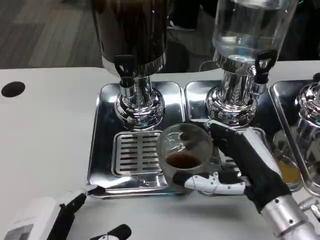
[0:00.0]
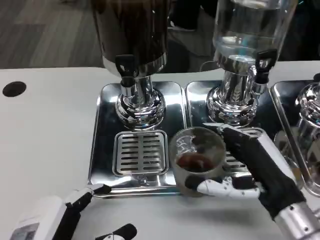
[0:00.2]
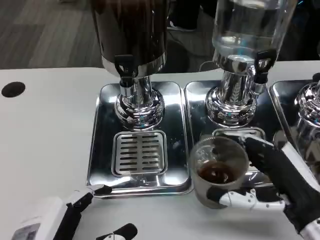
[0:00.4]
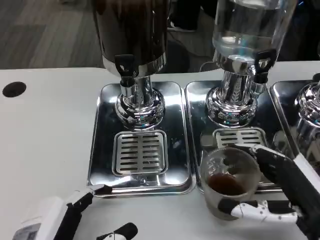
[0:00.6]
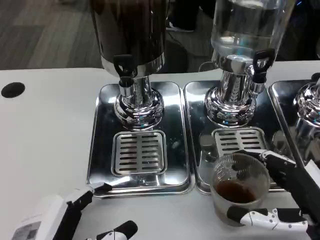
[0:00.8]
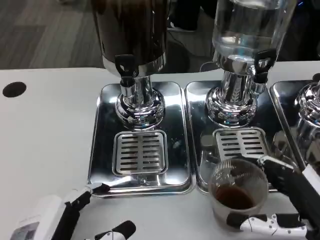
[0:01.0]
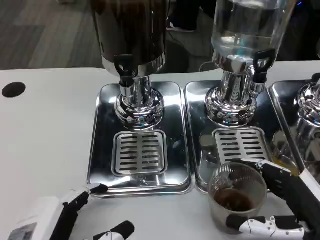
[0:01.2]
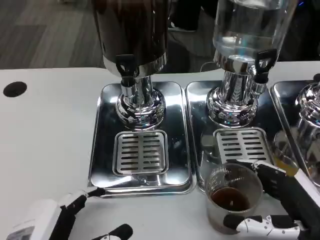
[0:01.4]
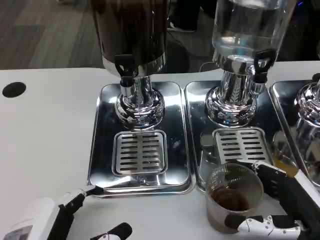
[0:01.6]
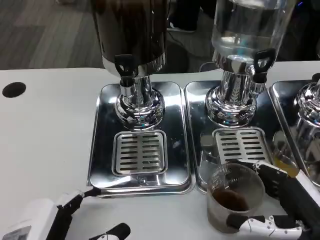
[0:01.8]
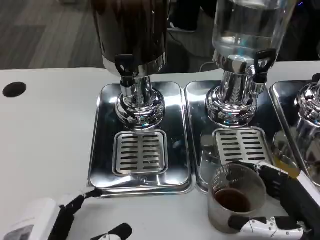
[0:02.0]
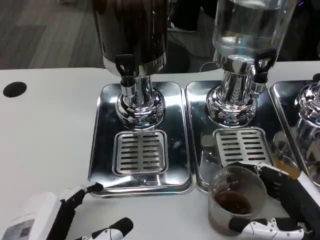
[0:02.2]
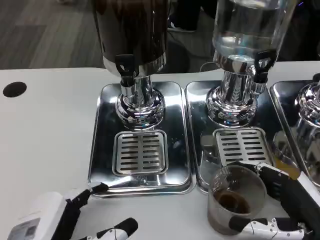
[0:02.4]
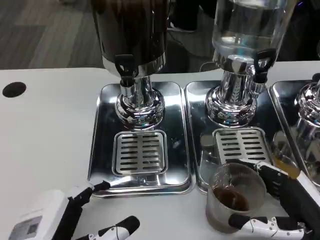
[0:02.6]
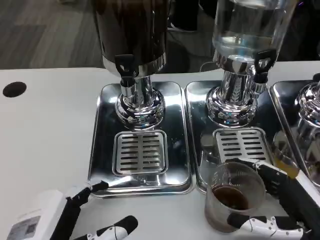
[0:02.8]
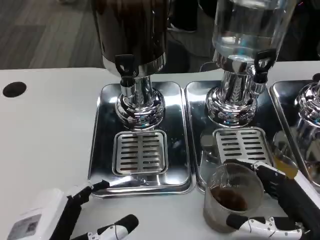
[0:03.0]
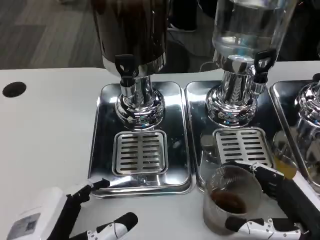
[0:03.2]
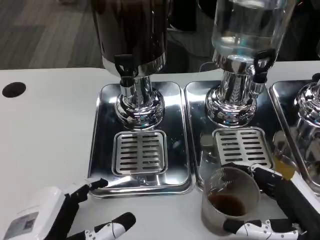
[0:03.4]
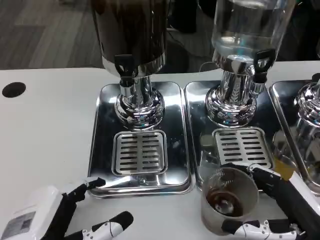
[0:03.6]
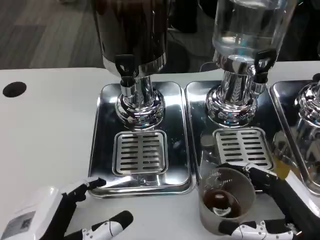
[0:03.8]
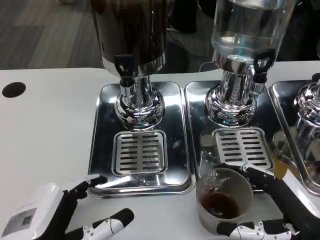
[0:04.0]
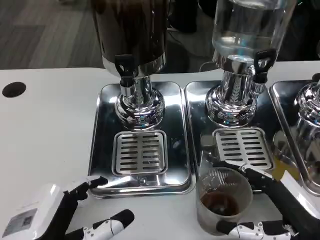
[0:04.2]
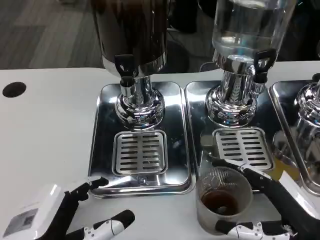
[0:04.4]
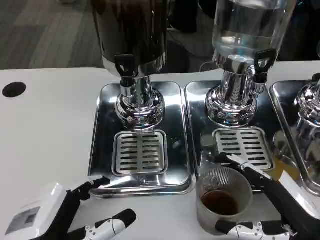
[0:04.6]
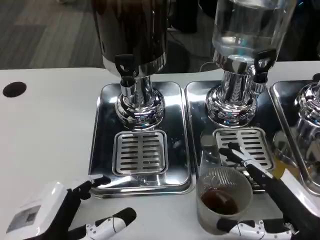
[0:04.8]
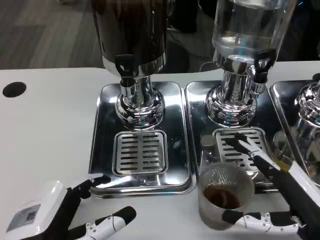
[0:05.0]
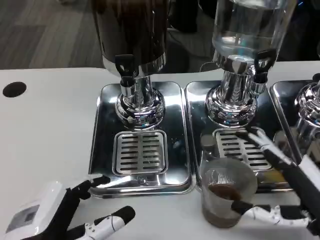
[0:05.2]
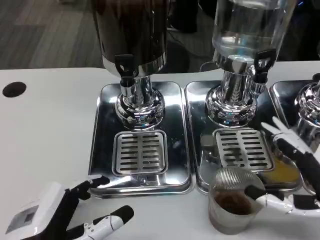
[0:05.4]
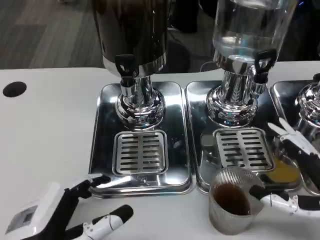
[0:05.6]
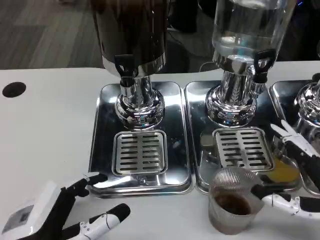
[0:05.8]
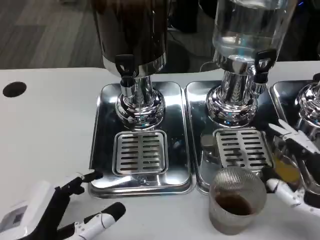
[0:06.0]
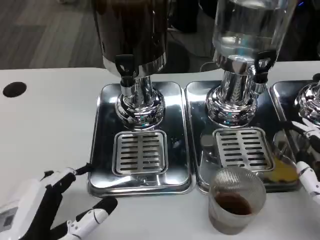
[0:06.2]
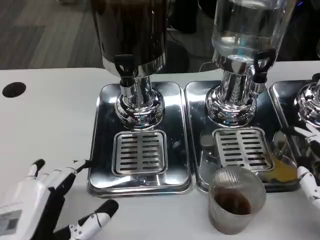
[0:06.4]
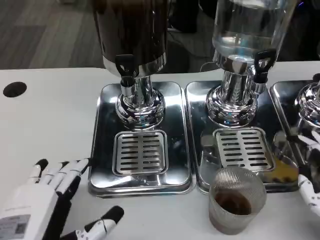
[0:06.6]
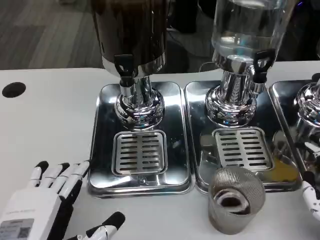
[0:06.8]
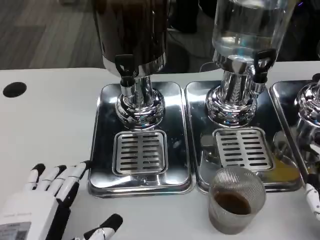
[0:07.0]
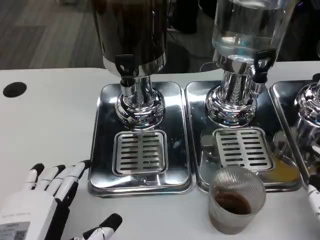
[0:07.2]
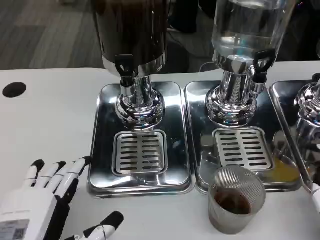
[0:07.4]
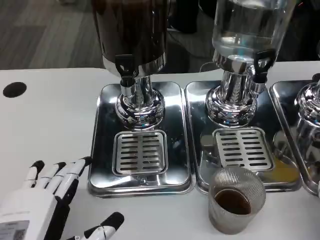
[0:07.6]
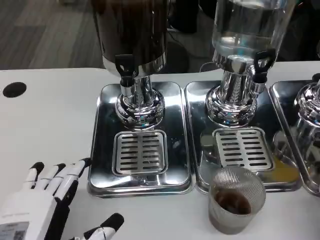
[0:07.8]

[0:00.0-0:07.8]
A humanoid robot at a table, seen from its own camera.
Task of the whole recording: Grasp the cup under the faucet to collect the drink, then remove the cup.
0:00.0 to 0:01.6: The right hand heads to the right, covering approximately 5 cm.
0:01.6 to 0:04.6: The hands make only small movements.
0:04.6 to 0:06.2: The right hand moves approximately 5 cm.

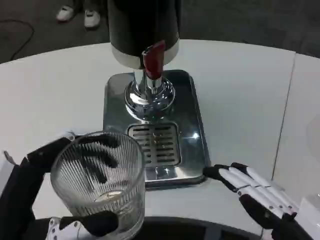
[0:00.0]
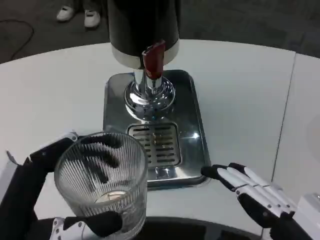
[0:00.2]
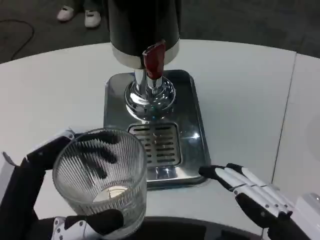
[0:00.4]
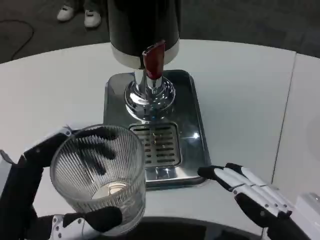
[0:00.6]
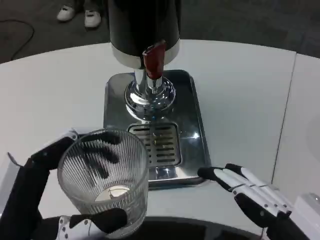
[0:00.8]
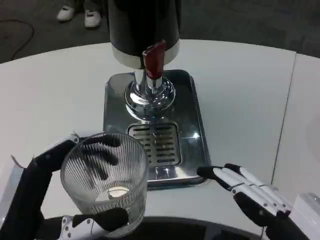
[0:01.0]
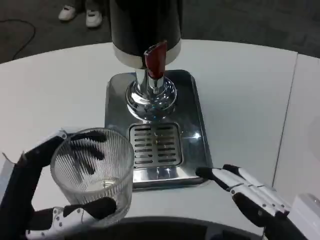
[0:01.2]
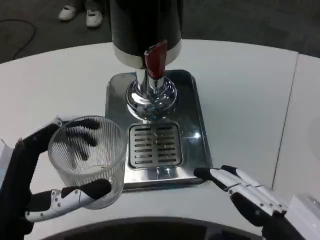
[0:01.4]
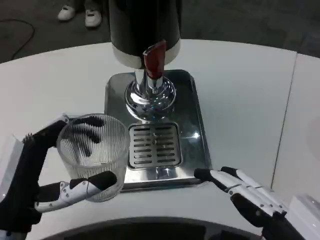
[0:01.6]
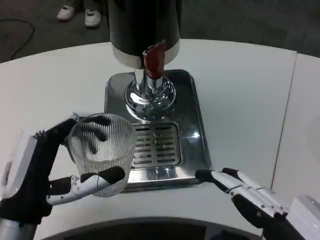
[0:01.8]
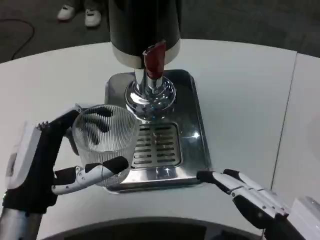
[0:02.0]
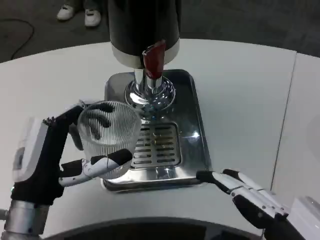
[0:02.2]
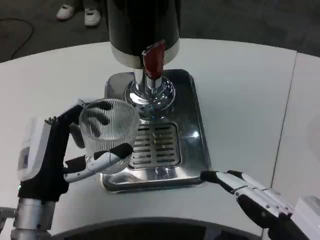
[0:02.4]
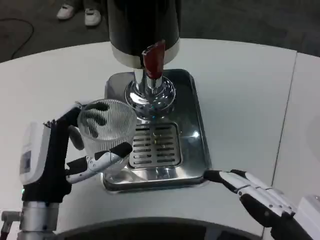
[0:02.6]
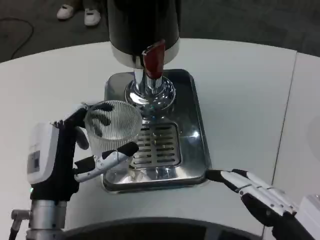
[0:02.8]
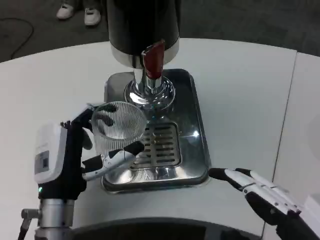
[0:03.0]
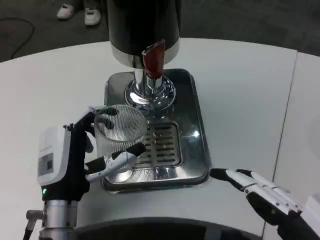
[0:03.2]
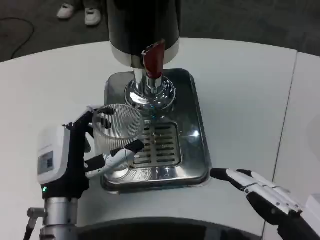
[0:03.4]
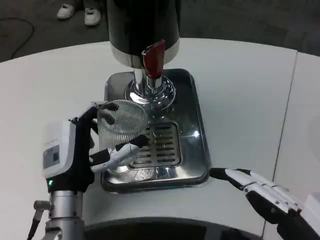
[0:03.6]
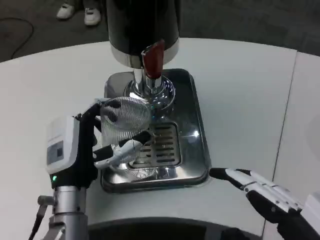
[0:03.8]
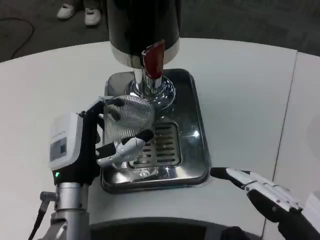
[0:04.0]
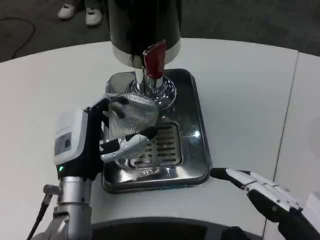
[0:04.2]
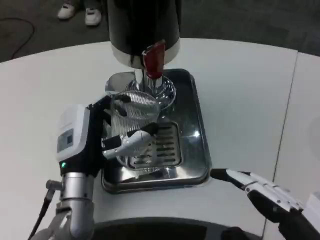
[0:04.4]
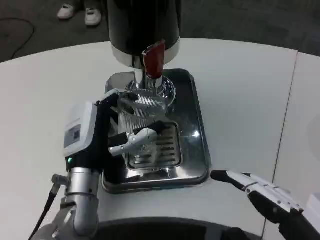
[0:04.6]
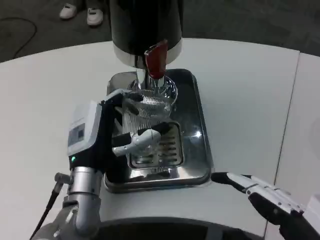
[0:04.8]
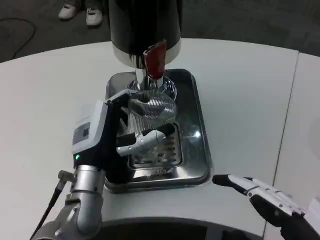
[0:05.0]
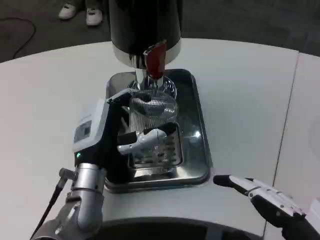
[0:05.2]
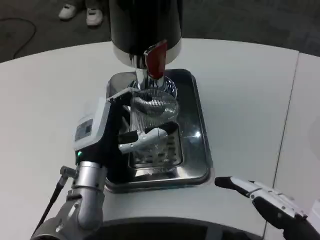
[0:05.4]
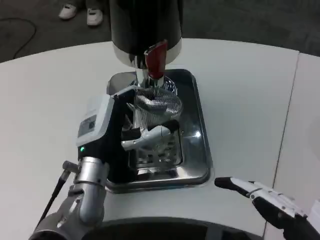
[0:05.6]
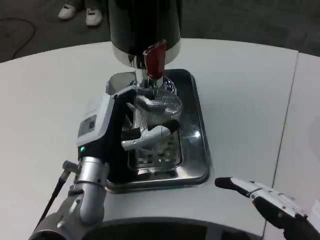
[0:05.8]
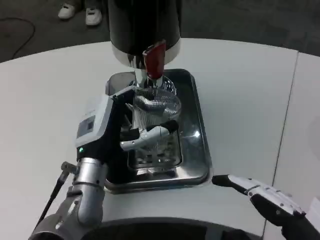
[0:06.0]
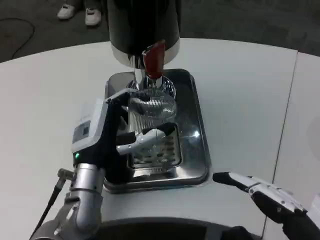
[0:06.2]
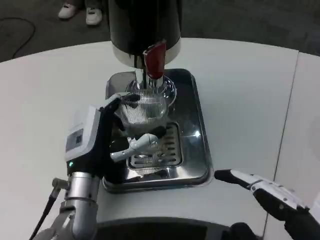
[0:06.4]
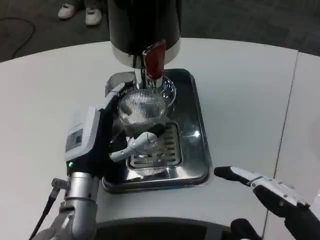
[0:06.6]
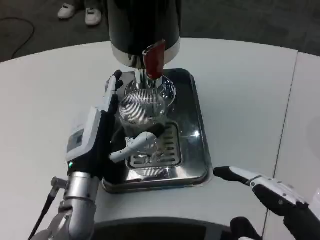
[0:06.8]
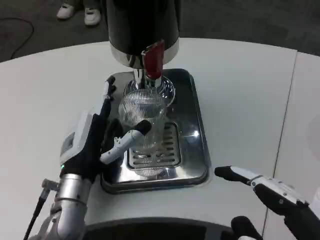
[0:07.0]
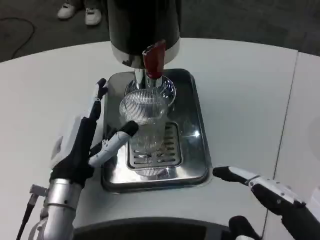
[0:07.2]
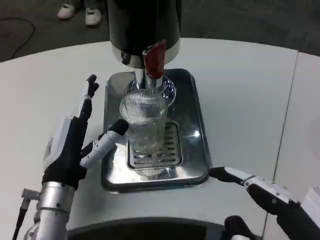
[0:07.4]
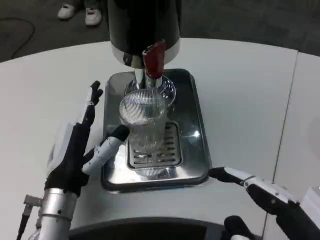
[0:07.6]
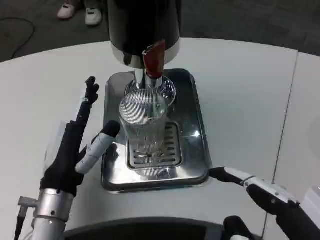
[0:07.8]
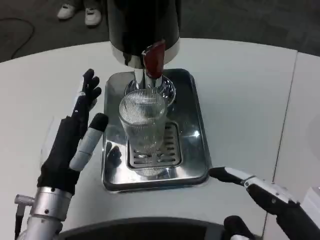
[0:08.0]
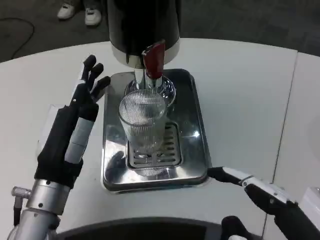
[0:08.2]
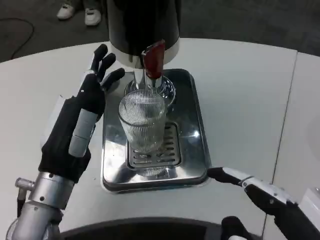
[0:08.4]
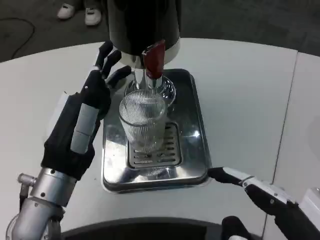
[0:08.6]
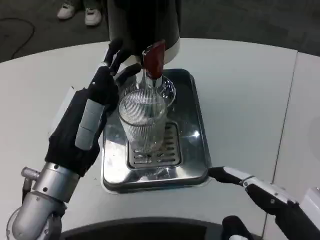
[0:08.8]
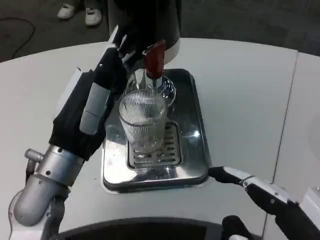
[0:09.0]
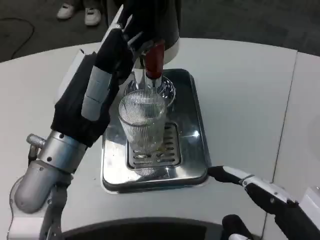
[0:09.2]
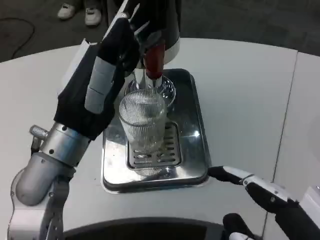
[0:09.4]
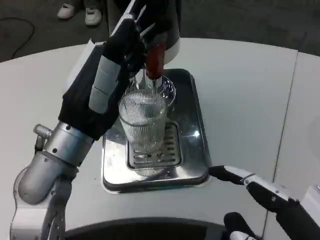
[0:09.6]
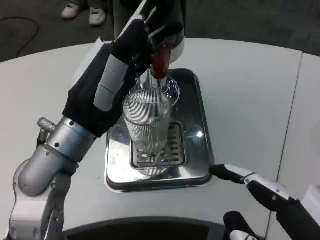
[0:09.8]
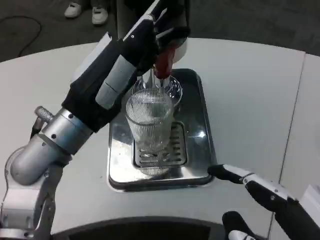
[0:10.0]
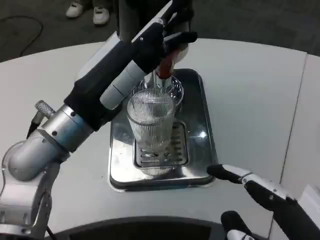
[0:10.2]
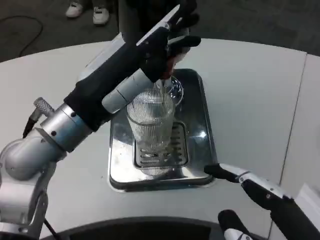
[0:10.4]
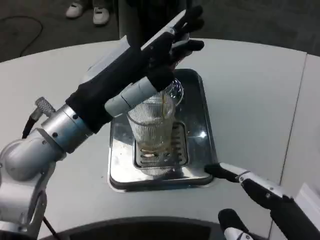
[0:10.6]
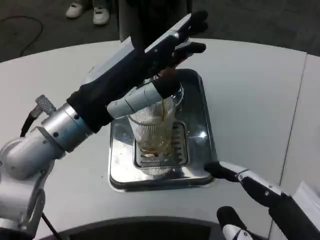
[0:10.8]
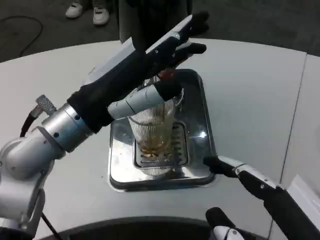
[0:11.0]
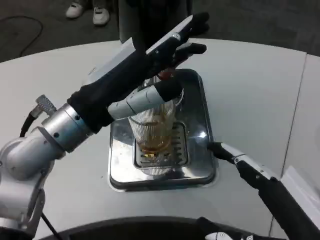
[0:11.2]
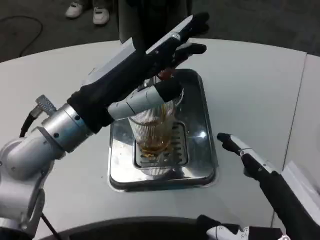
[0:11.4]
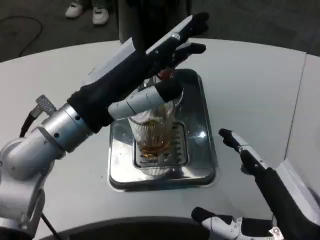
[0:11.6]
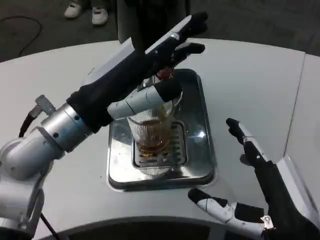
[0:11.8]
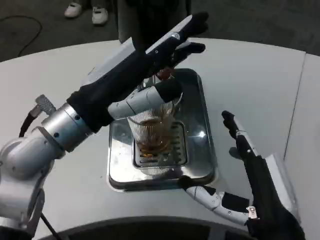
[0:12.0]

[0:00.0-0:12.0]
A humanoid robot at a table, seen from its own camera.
Task of the whole recording: Grasp the cup under the faucet to collect the drink, then remove the cup.
0:00.0 to 0:01.6: The left hand goes about 5 cm forward.
0:01.6 to 0:03.0: The left hand is displaced forward by roughly 10 cm.
0:03.0 to 0:04.4: The hands stay close to where they were, moving slightly.
0:04.4 to 0:06.0: The hands stay close to where they were, moving slightly.
0:06.0 to 0:07.6: The left hand ends up some 5 cm from where it was.
0:07.6 to 0:09.0: The left hand goes approximately 10 cm upward.
0:09.0 to 0:10.4: The left hand moves upward, roughly 5 cm.
0:10.4 to 0:12.0: The right hand moves forward, downward and to the left, approximately 15 cm.

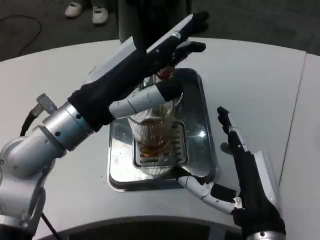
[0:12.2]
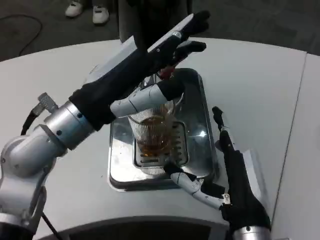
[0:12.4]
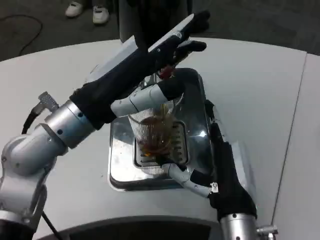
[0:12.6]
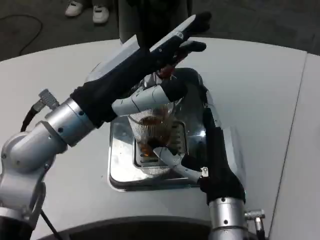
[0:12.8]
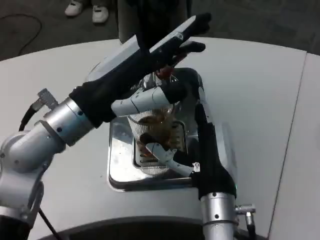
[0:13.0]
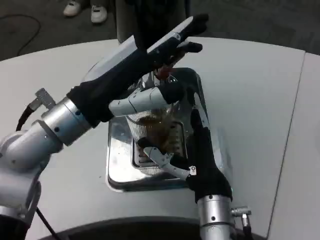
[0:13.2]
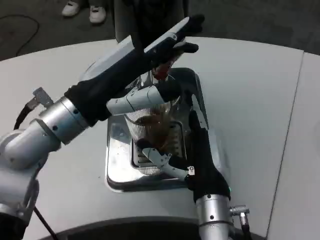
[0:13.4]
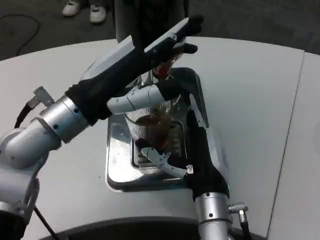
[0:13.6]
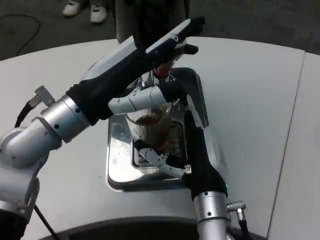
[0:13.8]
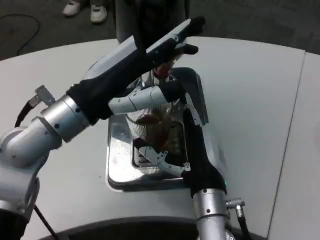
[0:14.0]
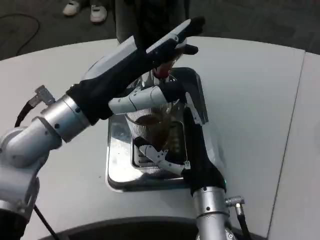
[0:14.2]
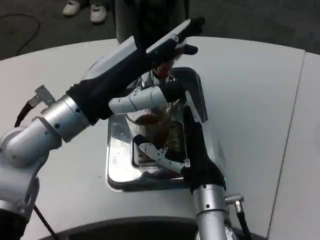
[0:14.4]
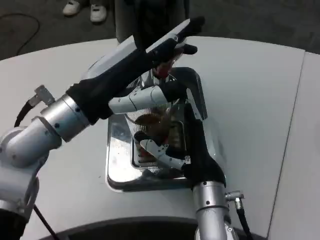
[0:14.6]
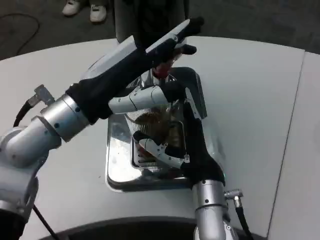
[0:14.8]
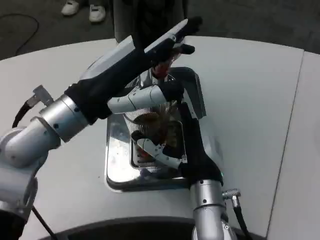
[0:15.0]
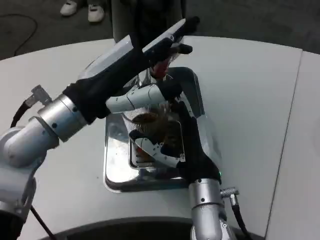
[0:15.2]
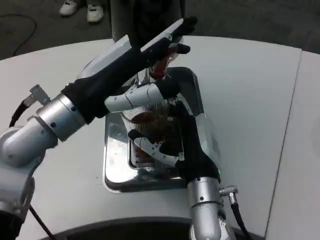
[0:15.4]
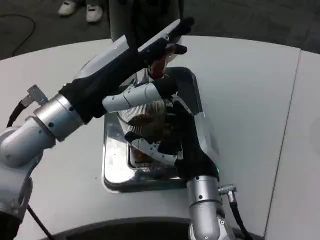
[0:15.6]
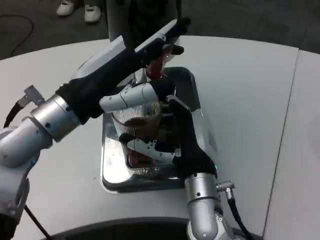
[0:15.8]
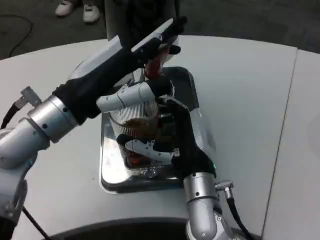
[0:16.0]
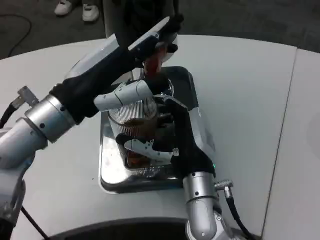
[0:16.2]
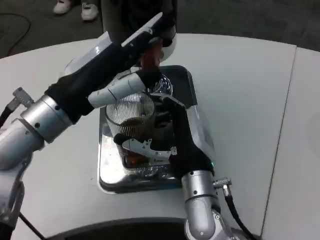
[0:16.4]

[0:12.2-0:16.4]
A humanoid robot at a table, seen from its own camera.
Task of the whole recording: Grasp the cup under the faucet to collect the drink, then remove the cup.
0:12.2 to 0:13.6: The right hand moves forward and to the left, roughly 10 cm.
0:13.6 to 0:15.0: The hands stay close to where they were, moving slightly.
